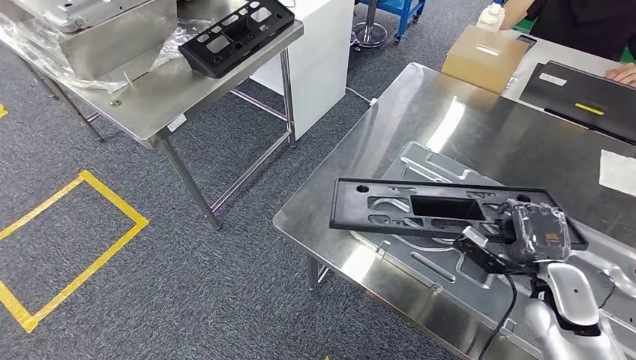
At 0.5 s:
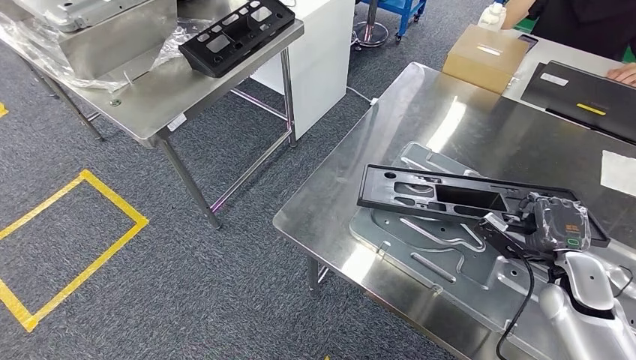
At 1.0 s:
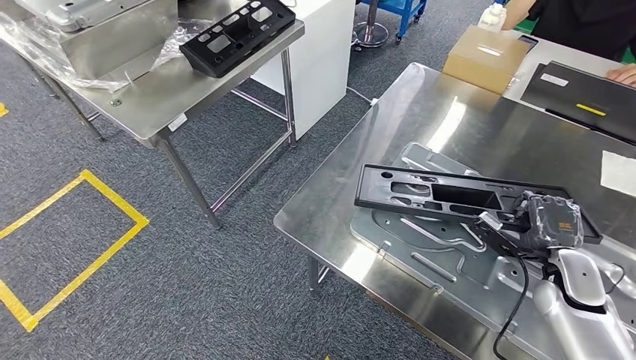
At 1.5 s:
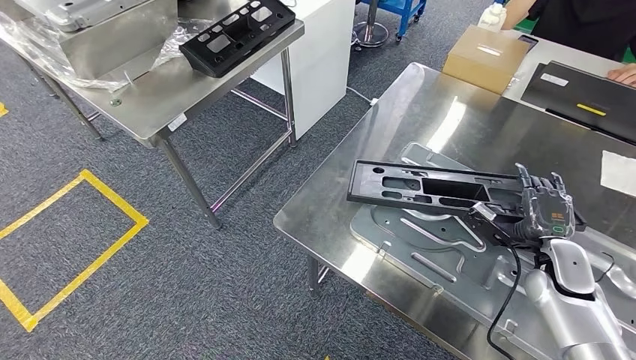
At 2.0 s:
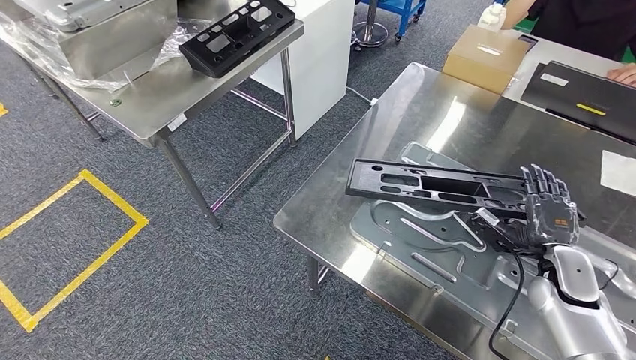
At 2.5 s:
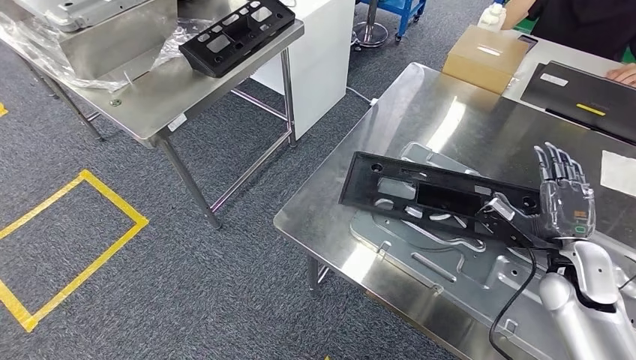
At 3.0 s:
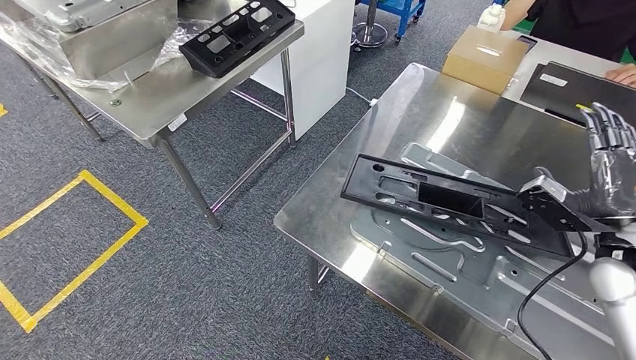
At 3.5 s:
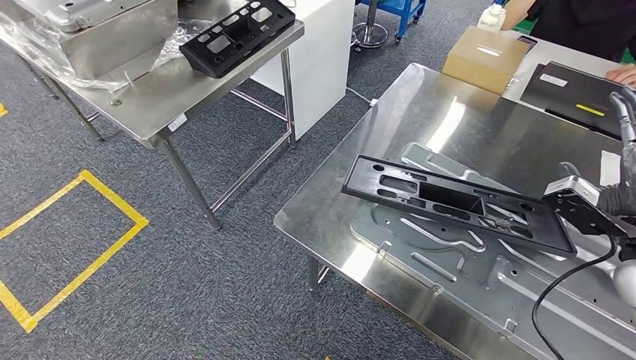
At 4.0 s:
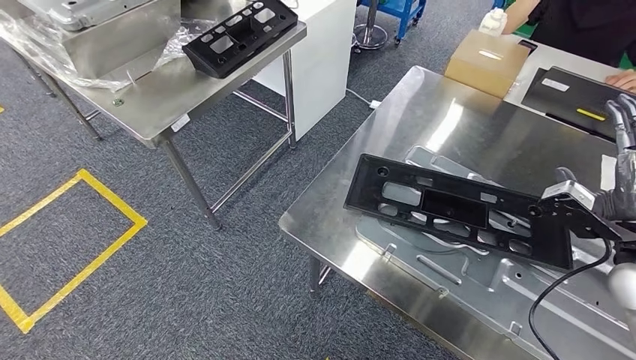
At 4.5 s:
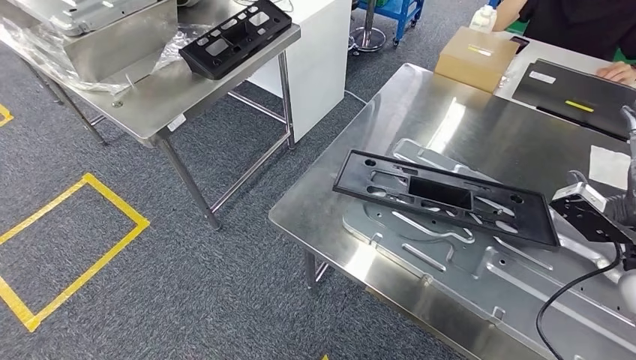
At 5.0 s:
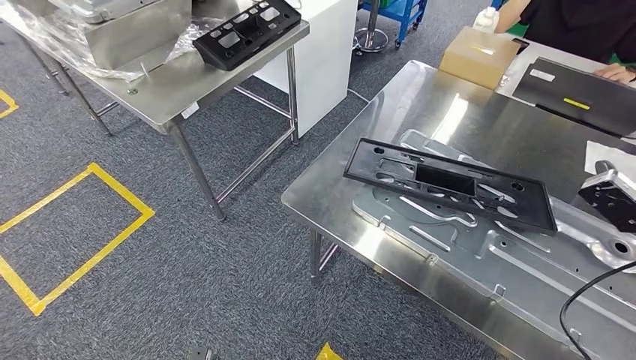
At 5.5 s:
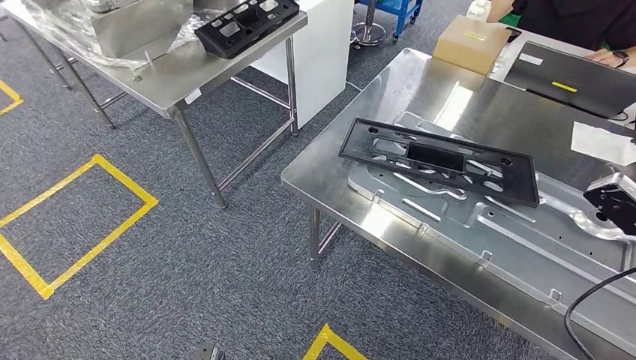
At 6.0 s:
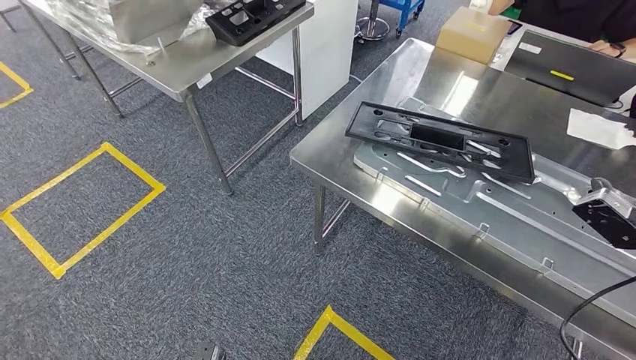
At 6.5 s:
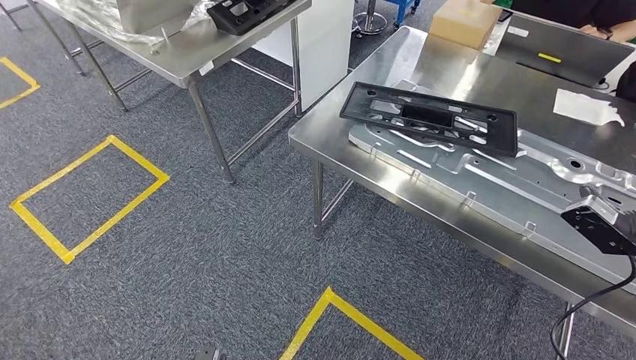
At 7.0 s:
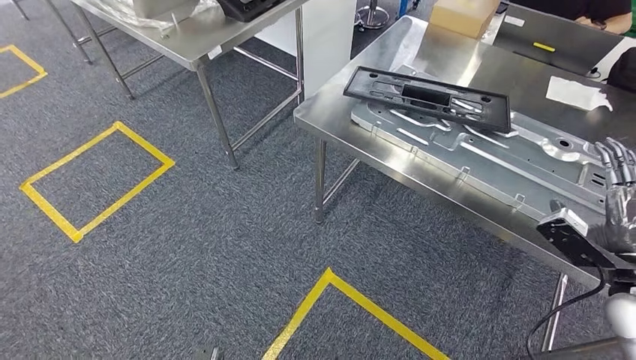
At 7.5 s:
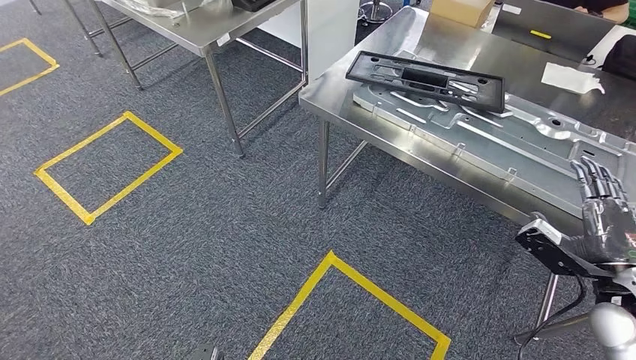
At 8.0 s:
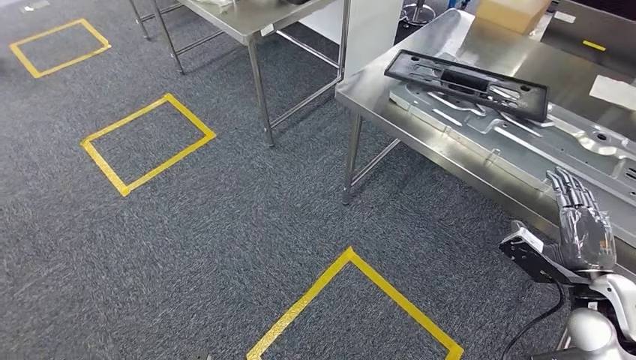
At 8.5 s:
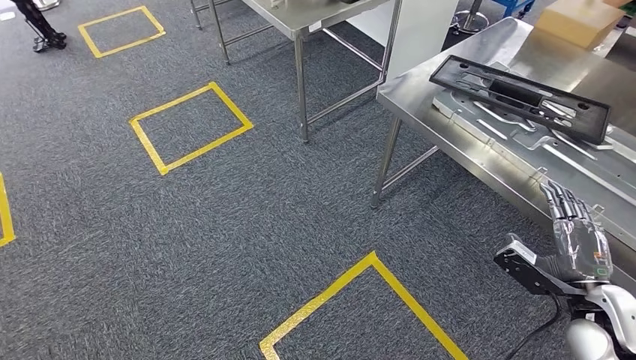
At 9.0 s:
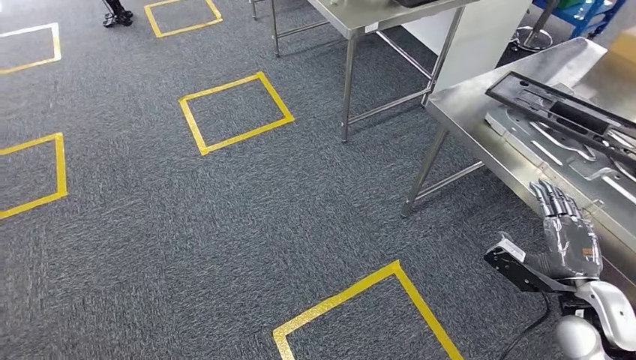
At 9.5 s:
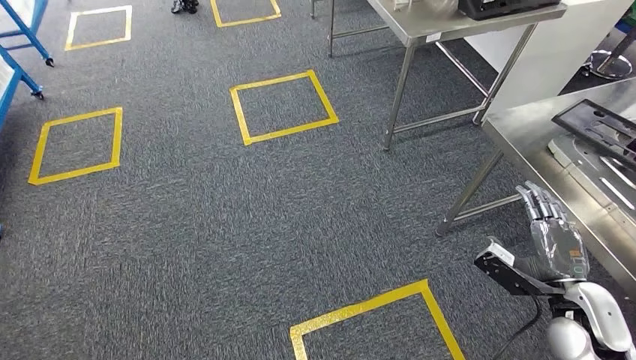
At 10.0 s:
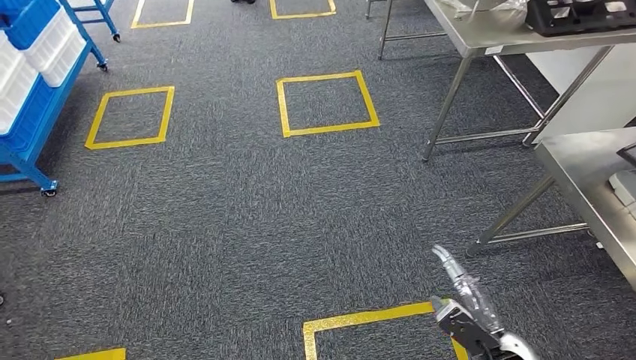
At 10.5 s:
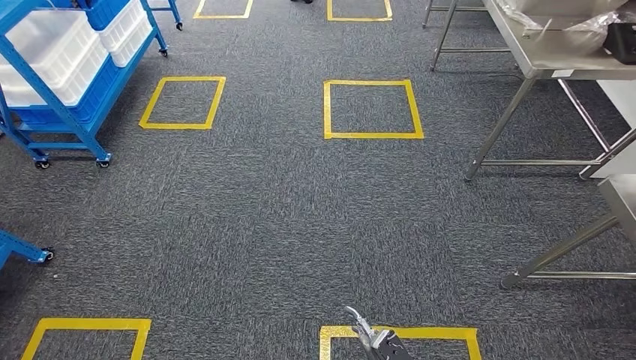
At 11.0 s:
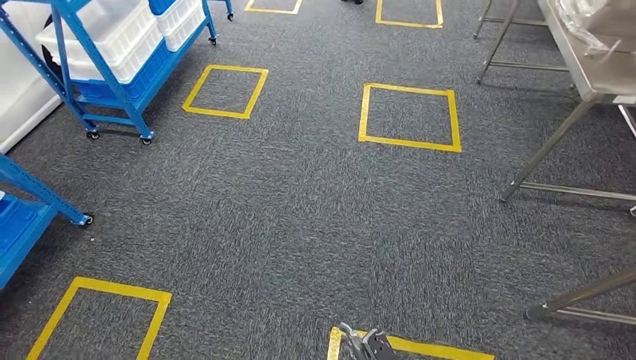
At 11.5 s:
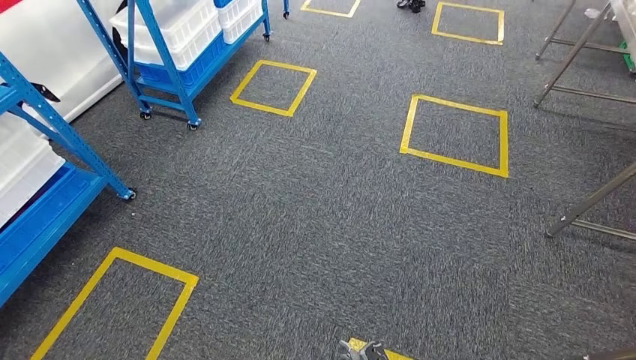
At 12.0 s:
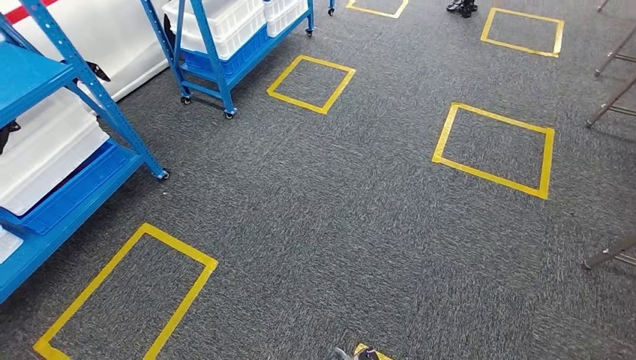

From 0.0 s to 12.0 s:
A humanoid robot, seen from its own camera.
Step, from 0.0 s to 3.0 s: Insert the large material into the corresponding slot on the workbench.
From 0.0 s to 2.0 s: The right hand changes place by some 5 cm.

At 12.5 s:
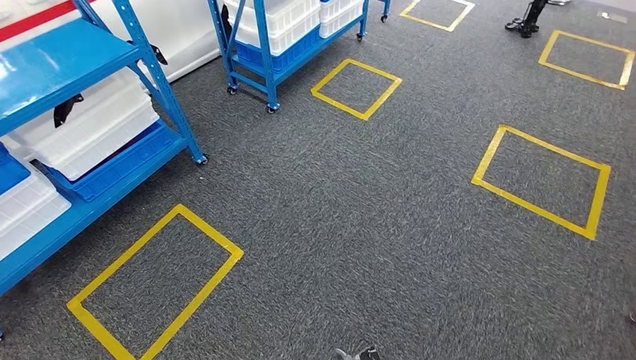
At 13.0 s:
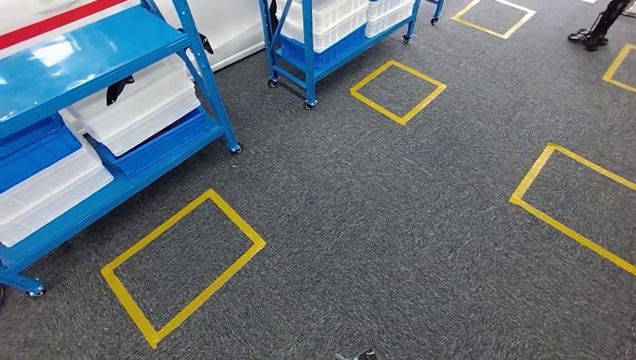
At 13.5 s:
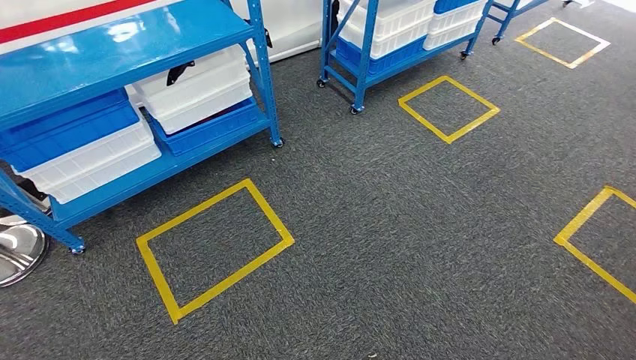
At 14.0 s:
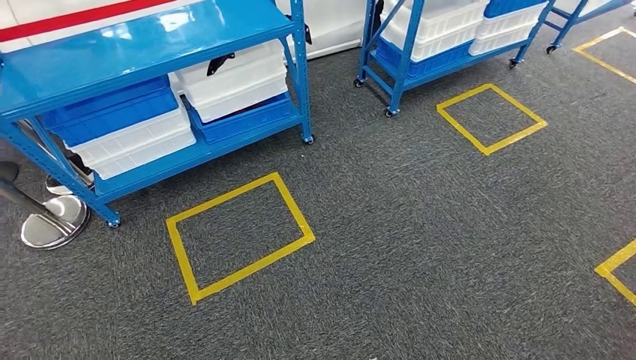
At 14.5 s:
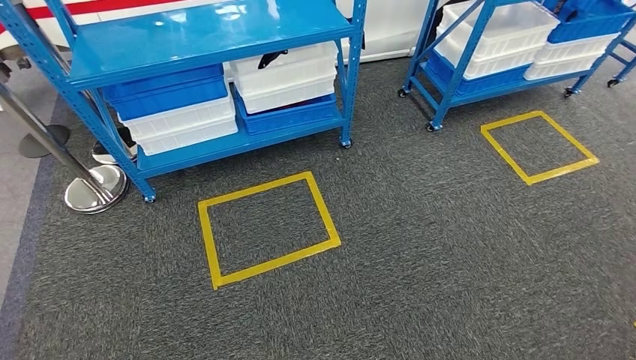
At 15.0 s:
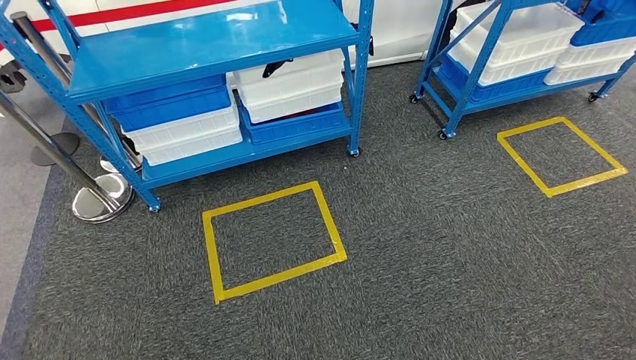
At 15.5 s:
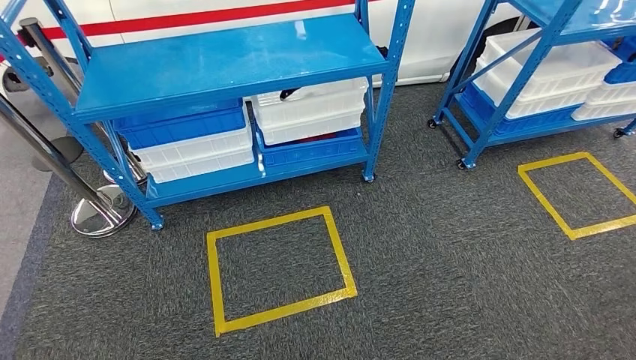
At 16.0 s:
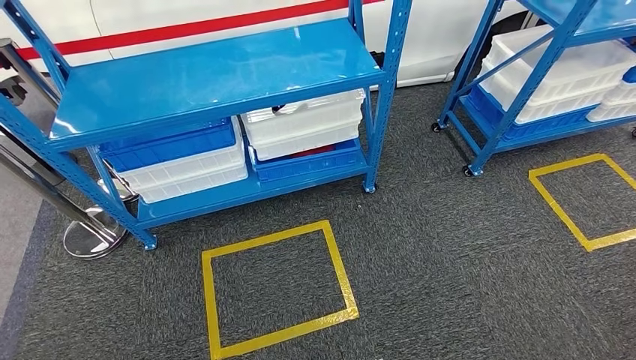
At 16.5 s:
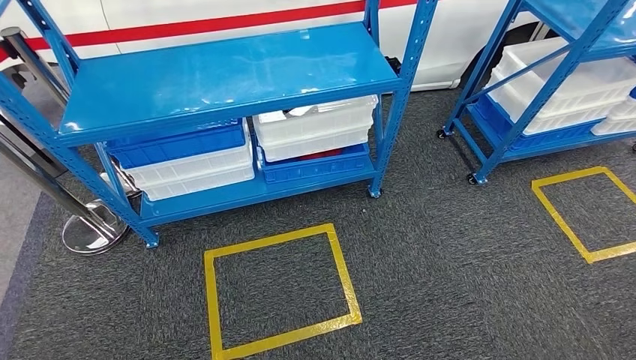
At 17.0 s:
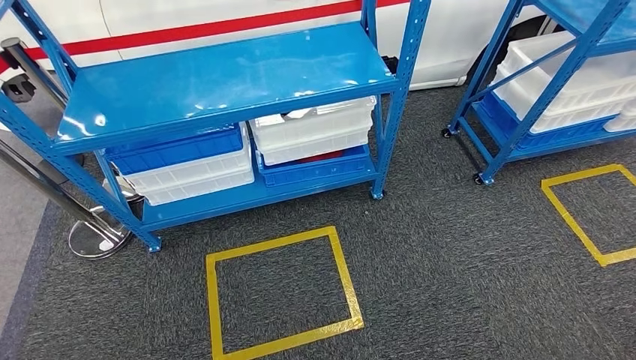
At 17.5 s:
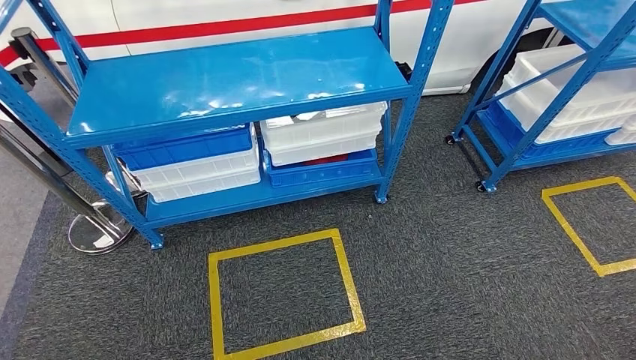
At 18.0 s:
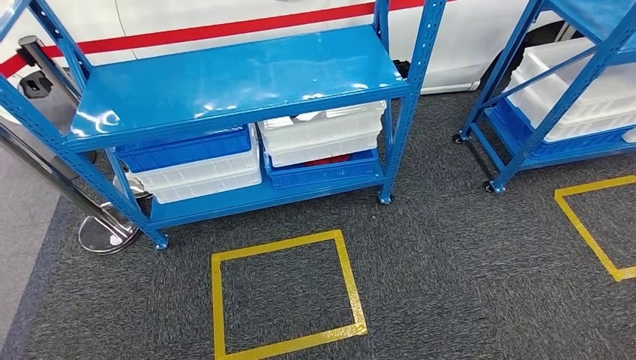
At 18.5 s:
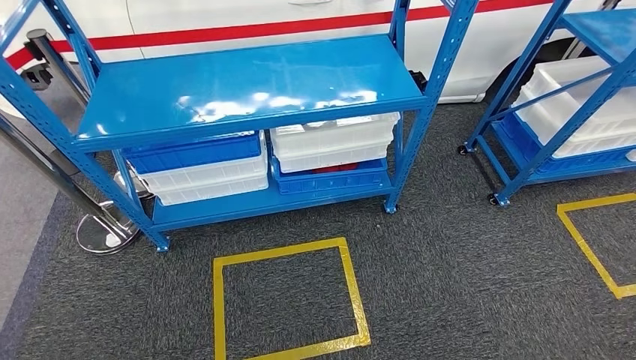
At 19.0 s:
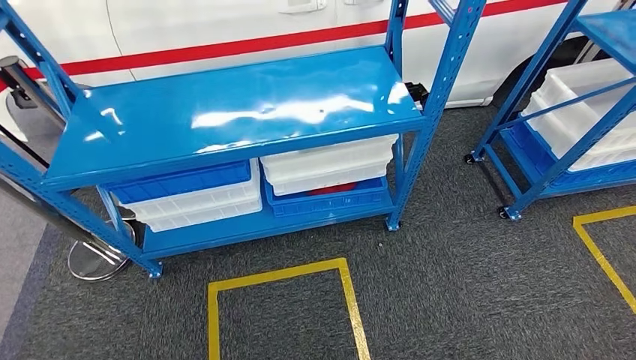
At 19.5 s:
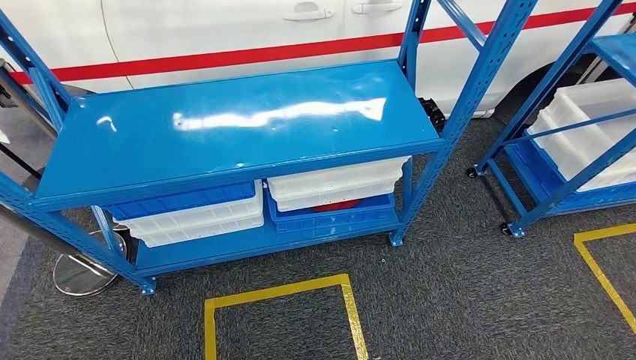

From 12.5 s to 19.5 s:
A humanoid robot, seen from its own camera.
Step, from 12.5 s to 19.5 s: Return to the initial position at the shelf.

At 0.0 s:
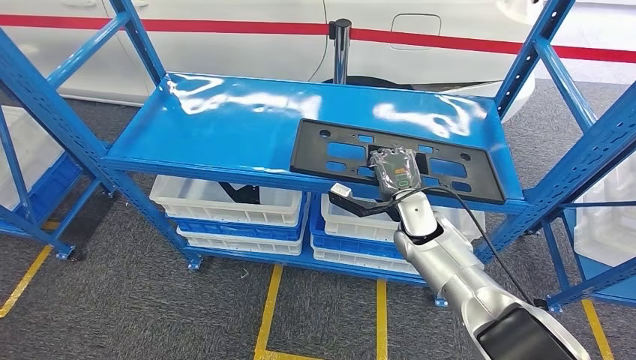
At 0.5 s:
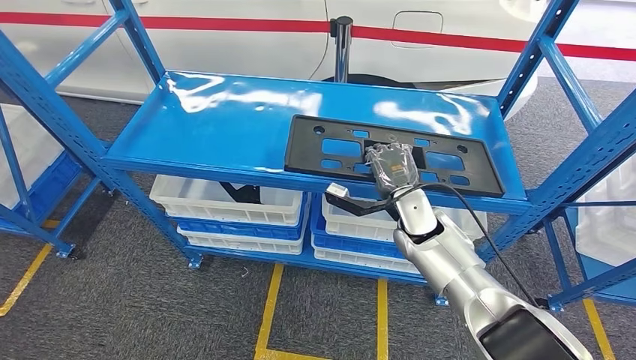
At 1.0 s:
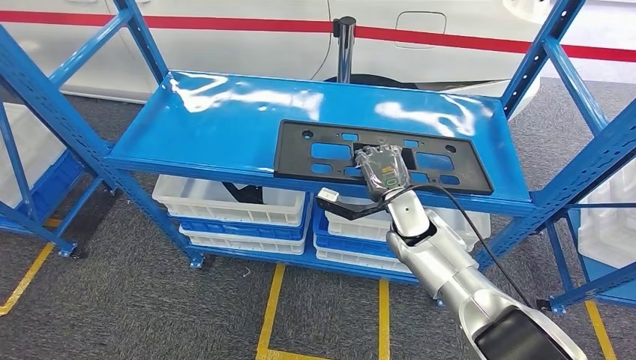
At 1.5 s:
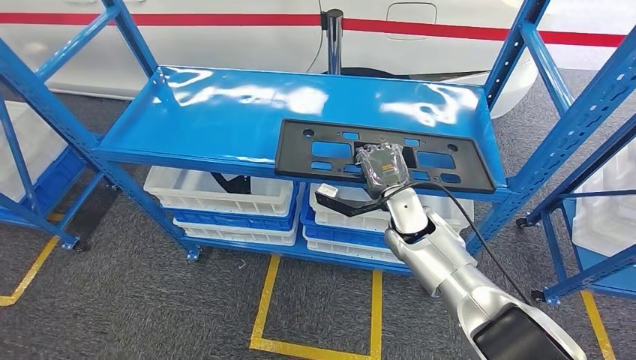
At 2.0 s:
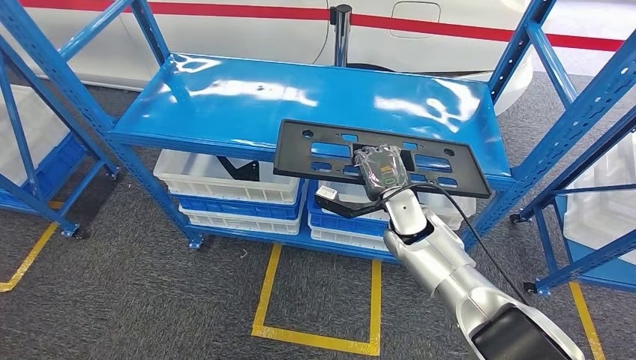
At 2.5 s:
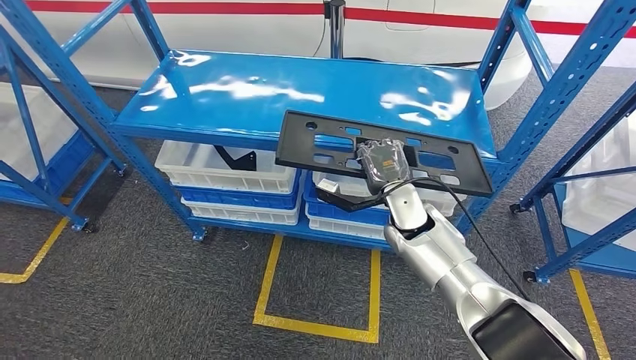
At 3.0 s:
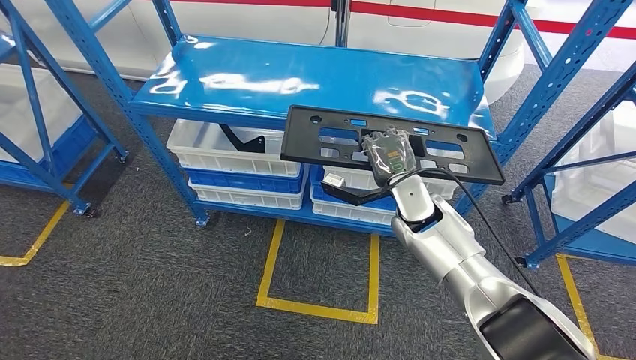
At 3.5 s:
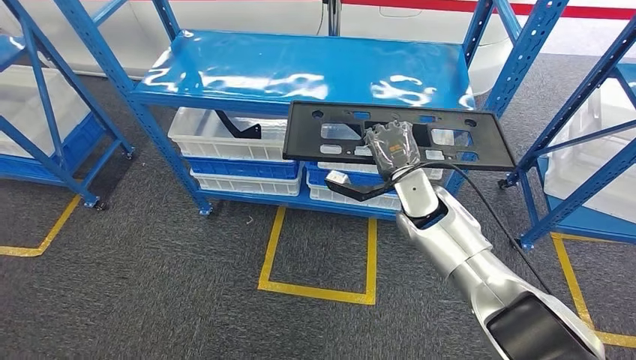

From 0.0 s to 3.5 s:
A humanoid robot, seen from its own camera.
Step, from 0.0 s to 3.0 s: Pick up the large material from the shelf.
